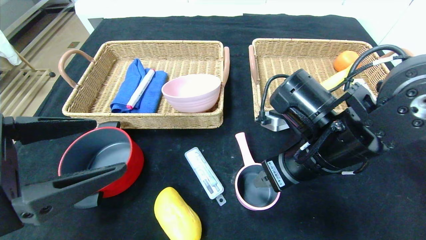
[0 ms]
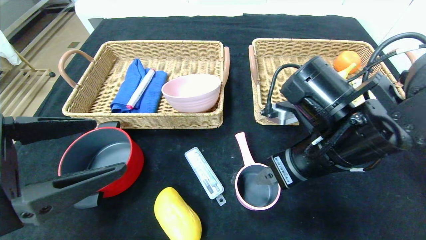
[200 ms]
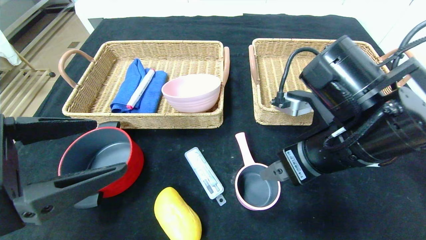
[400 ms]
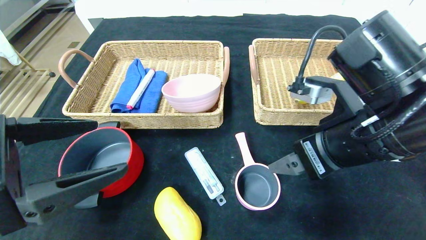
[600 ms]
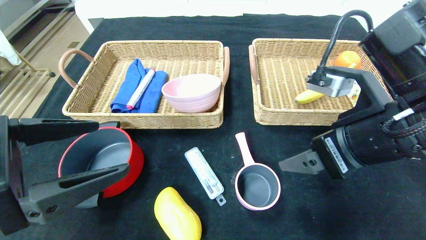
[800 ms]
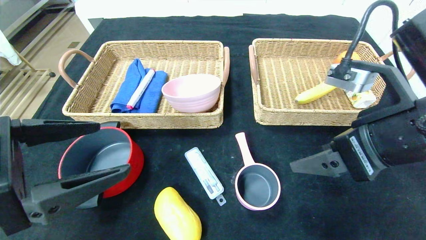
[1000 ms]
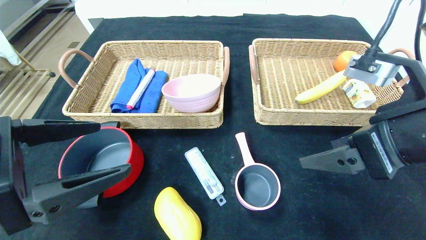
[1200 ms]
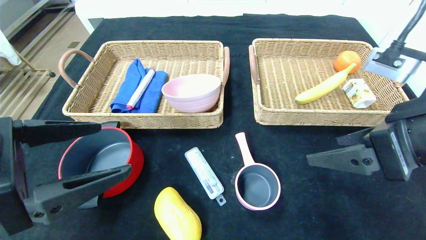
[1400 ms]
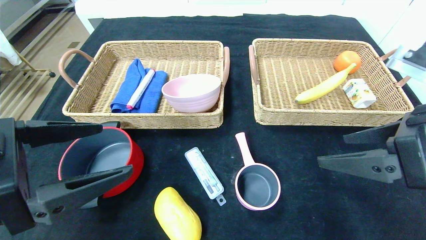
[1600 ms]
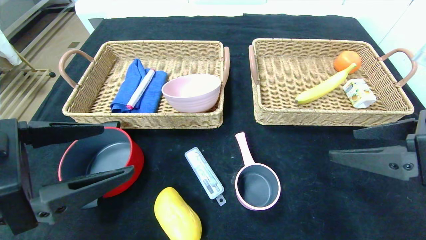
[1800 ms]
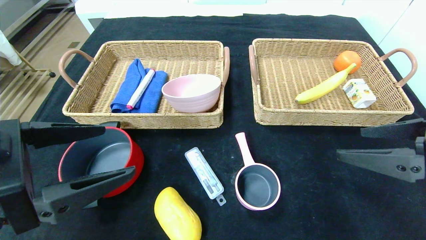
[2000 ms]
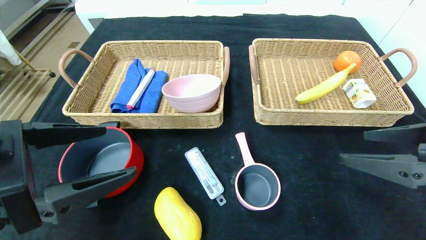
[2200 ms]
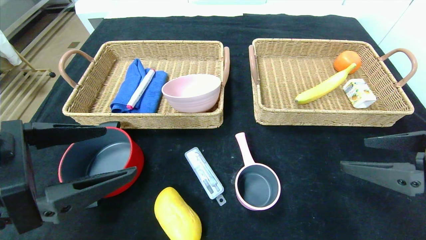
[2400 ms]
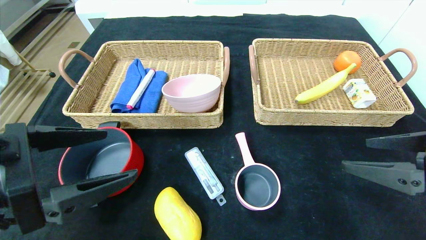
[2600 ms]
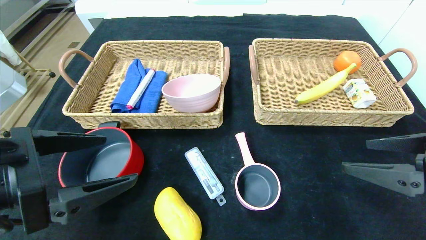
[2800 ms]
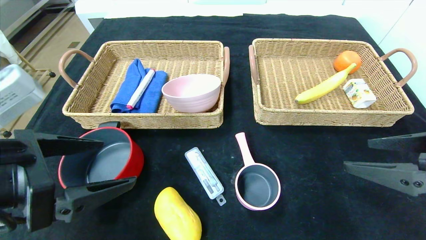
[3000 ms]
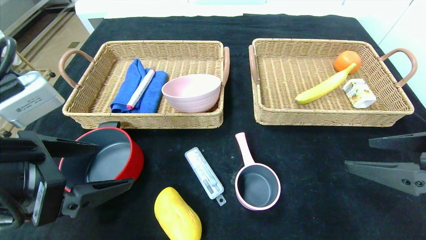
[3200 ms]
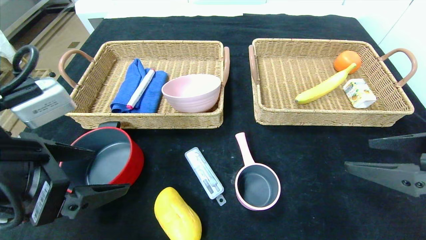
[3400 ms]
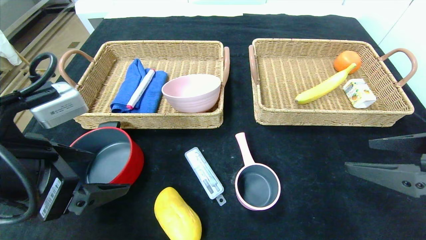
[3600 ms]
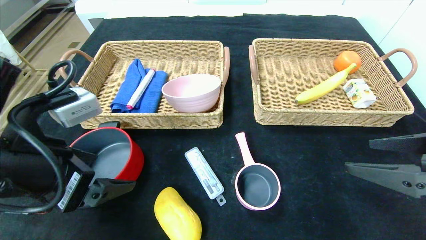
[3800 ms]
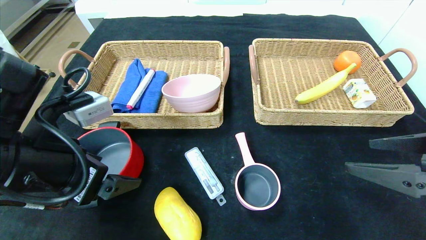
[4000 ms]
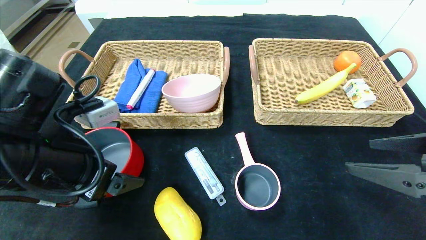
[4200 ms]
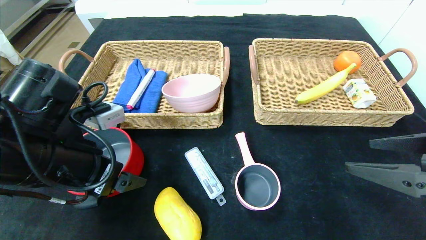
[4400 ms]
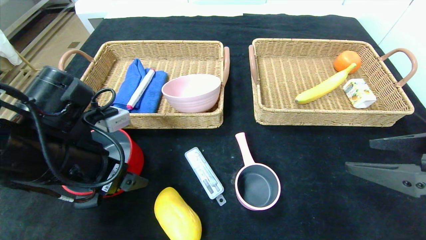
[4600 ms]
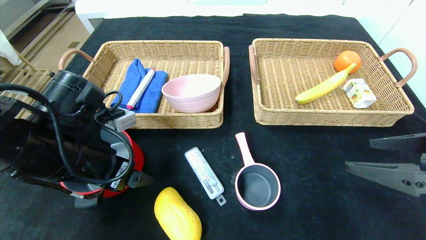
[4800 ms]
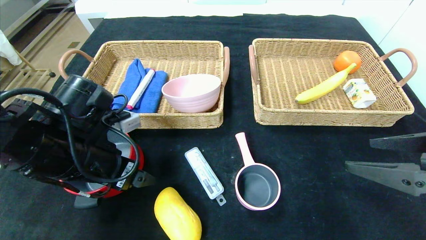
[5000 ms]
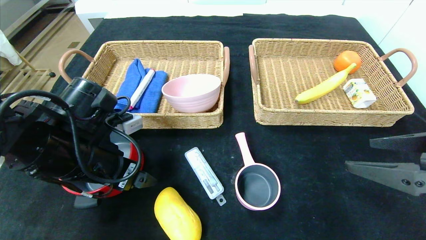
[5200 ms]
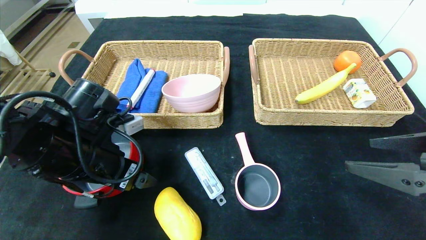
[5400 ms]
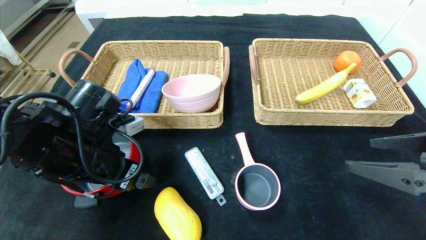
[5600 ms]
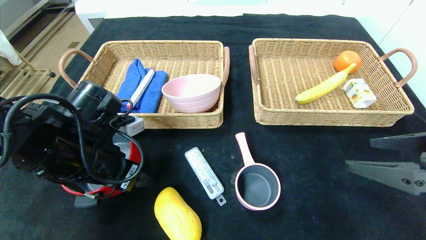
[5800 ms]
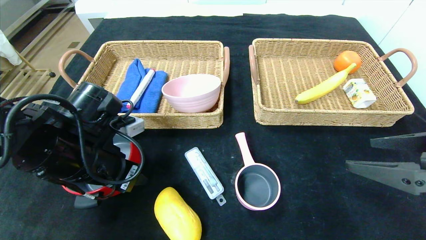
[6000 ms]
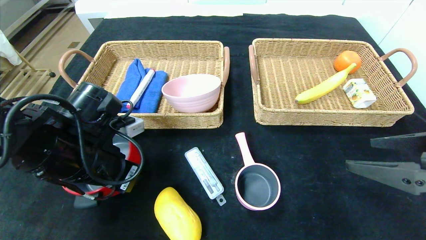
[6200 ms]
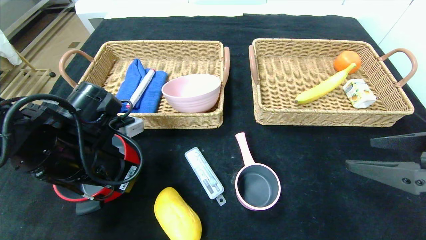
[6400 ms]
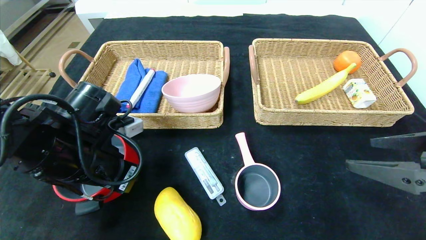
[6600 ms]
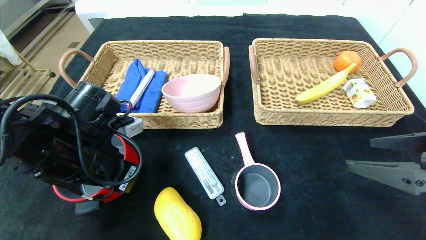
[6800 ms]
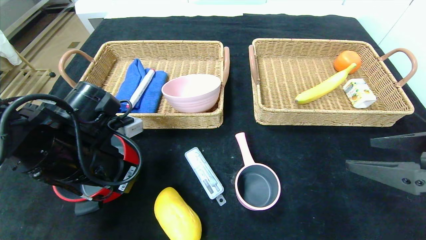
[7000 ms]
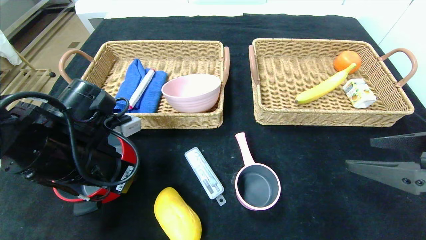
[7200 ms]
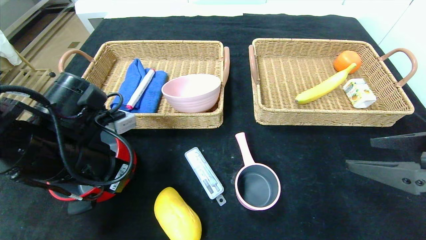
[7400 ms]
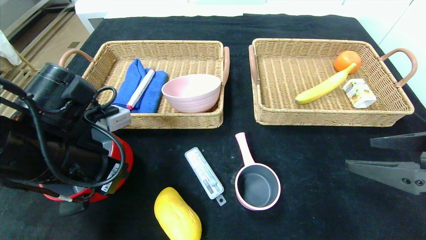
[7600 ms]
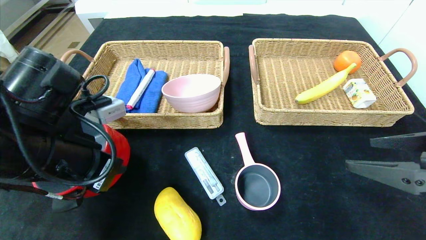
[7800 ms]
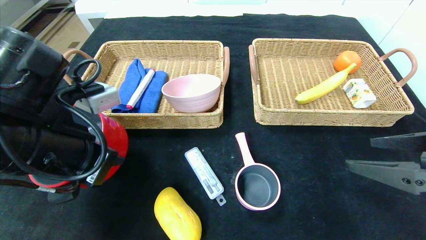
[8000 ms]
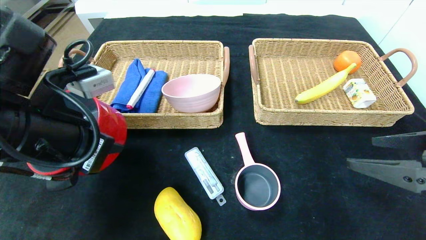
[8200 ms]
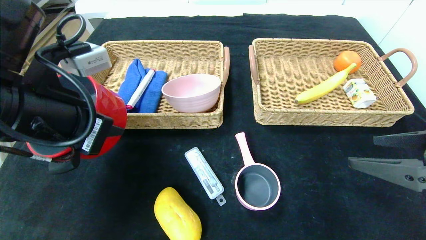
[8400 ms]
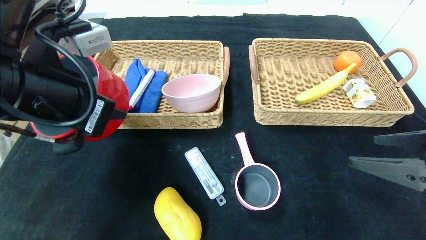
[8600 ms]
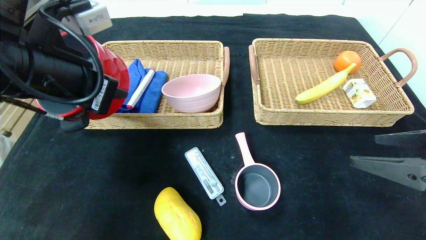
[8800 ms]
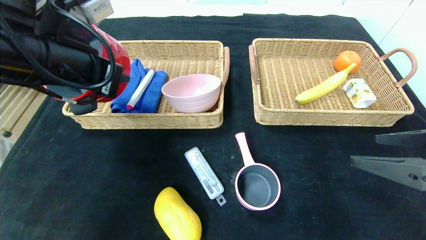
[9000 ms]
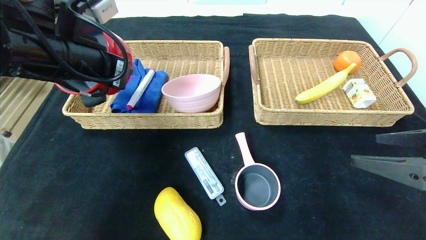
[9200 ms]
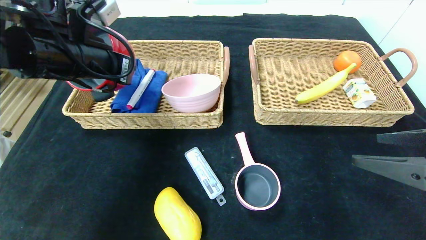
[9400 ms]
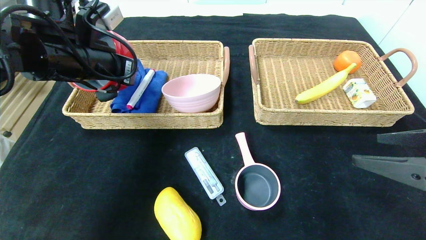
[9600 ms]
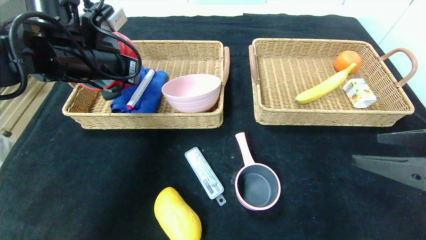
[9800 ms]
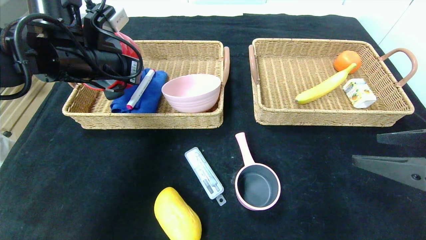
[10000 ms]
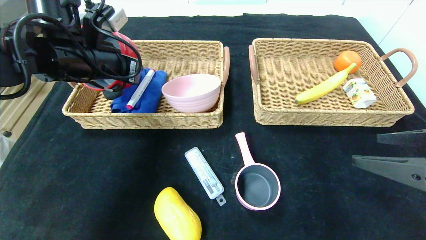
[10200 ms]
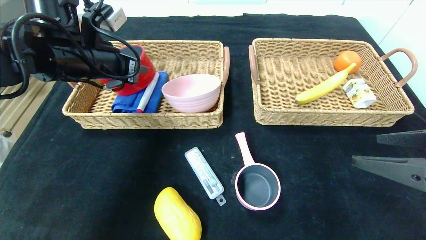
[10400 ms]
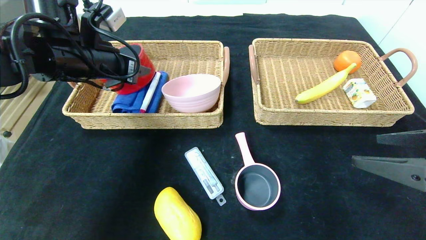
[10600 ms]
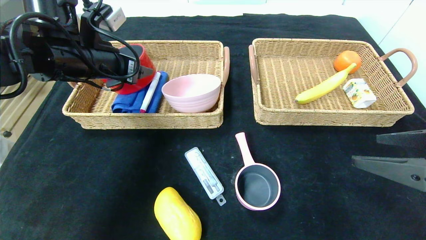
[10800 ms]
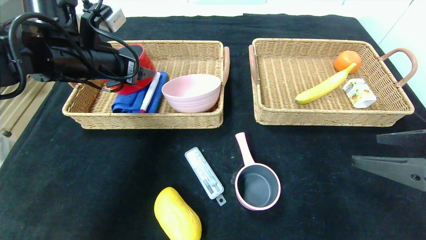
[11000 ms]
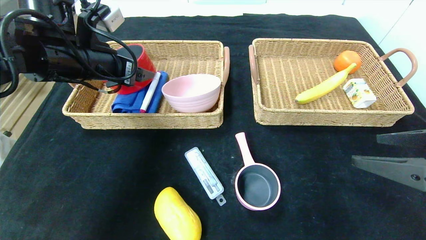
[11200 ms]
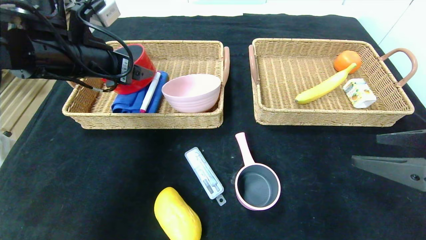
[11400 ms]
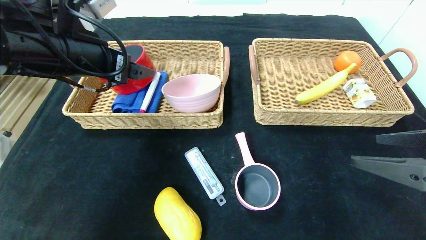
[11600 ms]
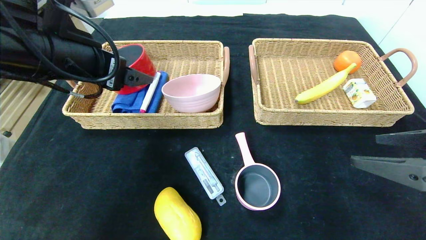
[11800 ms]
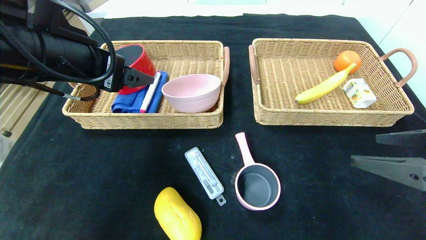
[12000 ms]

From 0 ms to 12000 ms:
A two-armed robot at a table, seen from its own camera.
Step, from 0 ms to 10400 ms: Grasp the red pot and put it in the left basket.
From 0 ms to 1600 ms: The right gripper moves to the right, backward and upward, some 15 cm.
From 1600 ms to 3000 ms: The grippers move only a little.
From 3000 ms to 4400 ms: The left gripper shifts about 5 cm forward.
From 4400 ms to 6000 ms: The left gripper moves roughly 5 cm, and closes its fingers.
From 6000 ms to 7600 ms: The left gripper closes.
From 7600 ms to 9000 ms: The left gripper is displaced upward by about 10 cm.
From 9000 ms to 10400 ms: The left gripper heads forward, covering approximately 10 cm, and opens up.
From 10400 ms to 12000 ms: The left gripper travels backward by about 10 cm, and opens.

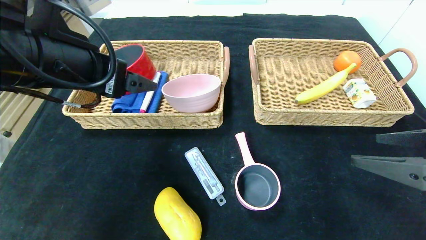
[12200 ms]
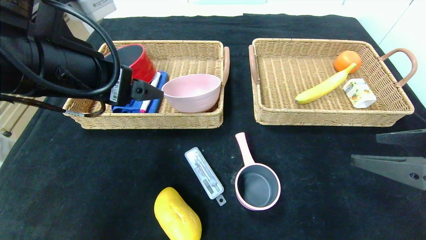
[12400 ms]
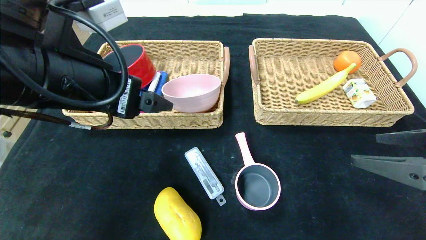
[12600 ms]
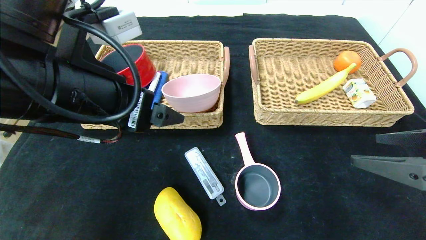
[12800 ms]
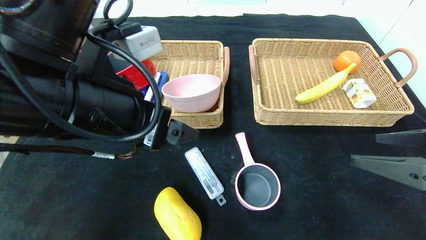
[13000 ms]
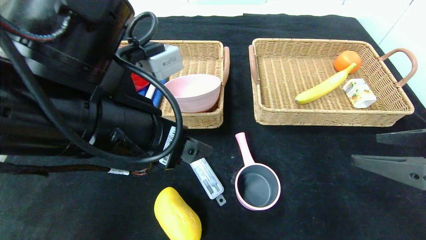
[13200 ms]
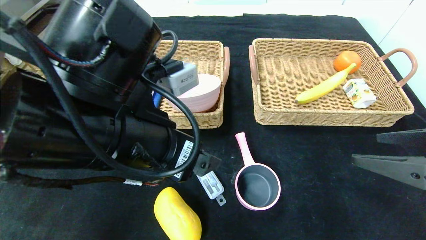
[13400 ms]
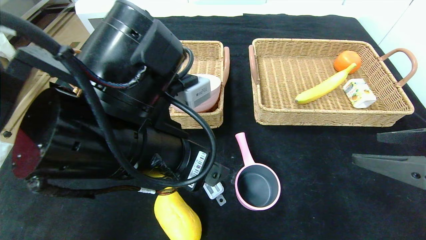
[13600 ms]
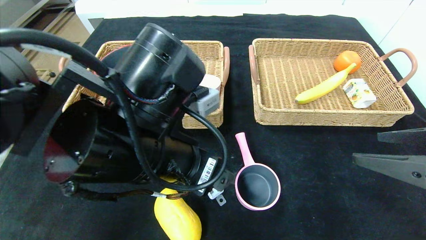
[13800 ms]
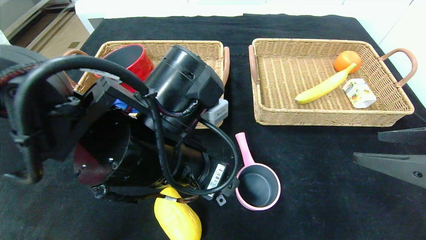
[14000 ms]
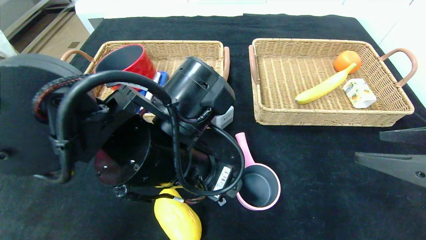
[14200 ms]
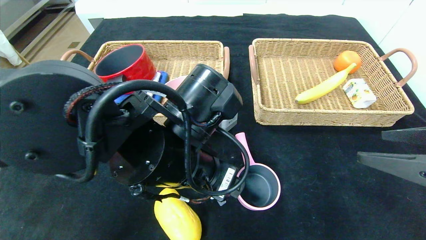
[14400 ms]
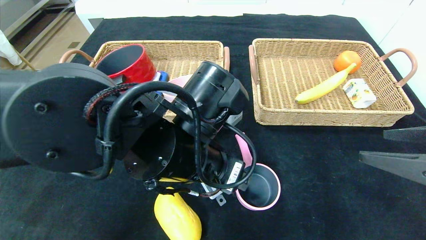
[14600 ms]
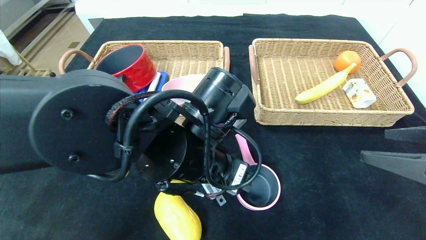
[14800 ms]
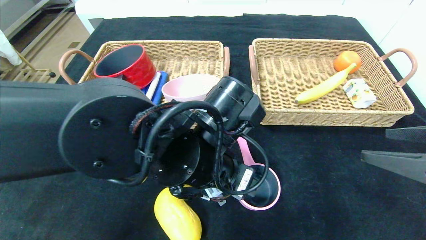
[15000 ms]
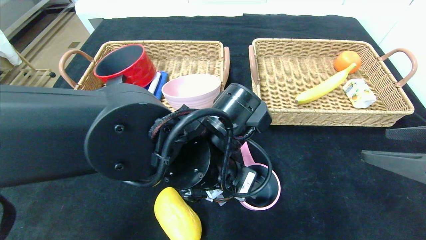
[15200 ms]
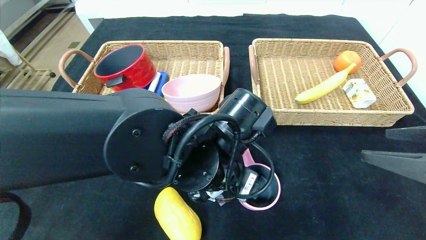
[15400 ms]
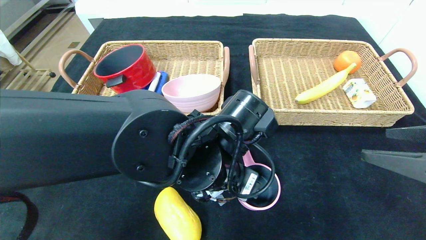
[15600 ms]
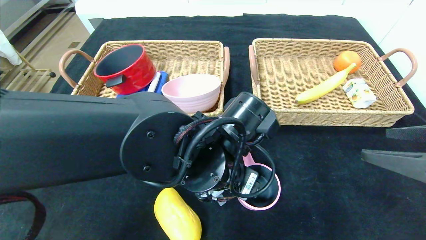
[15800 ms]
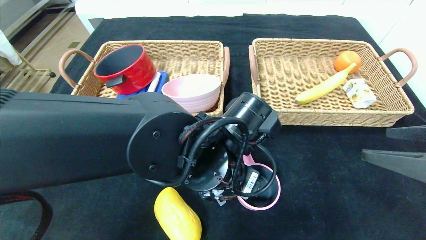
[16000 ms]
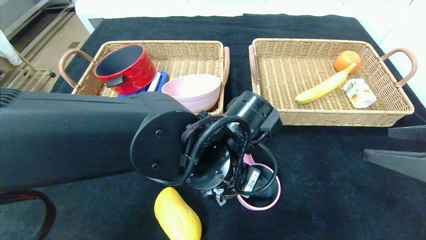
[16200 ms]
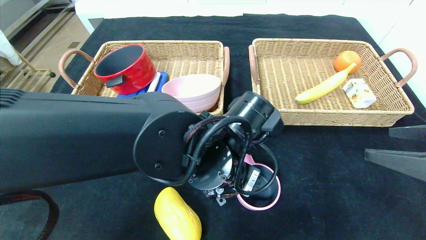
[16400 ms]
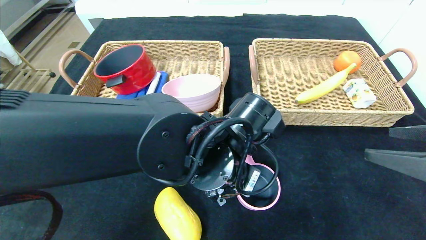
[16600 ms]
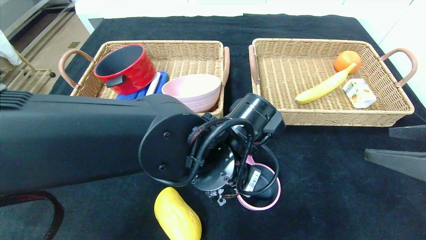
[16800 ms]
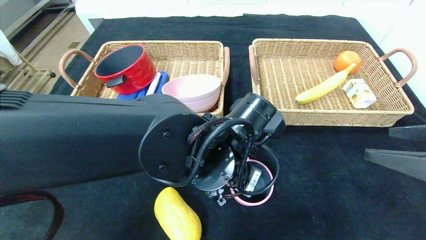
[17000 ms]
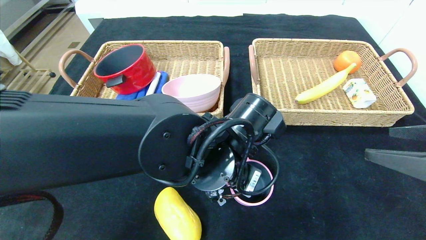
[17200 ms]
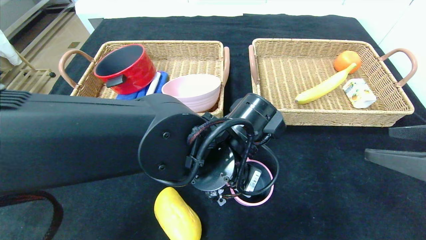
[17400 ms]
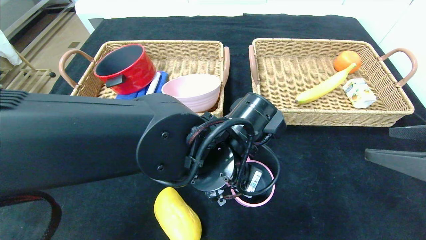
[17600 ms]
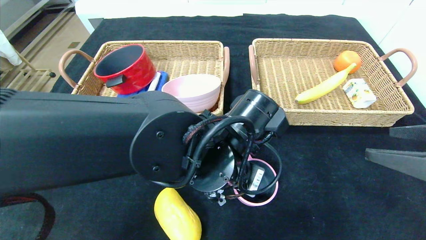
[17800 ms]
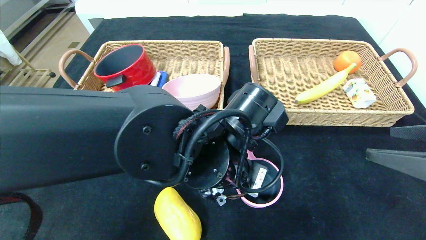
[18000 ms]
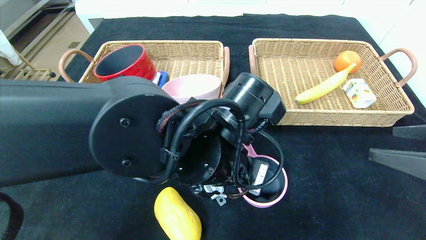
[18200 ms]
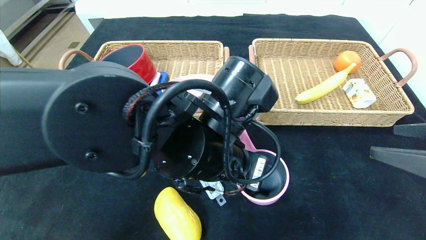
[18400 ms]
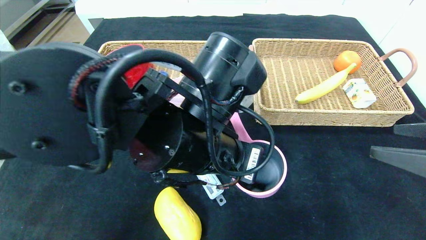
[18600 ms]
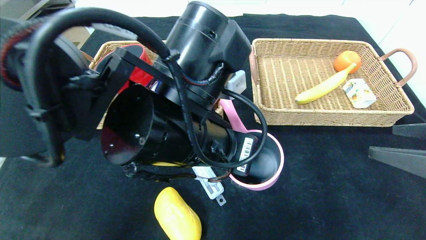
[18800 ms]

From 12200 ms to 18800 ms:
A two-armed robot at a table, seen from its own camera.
From 12200 ms to 13800 ms: The left gripper heads to the right and downward, covering about 15 cm.
From 13800 ms to 15400 ms: The left gripper shifts approximately 10 cm to the right and downward.
From 15400 ms to 17200 ms: The left gripper closes.
From 17200 ms to 18800 ms: The left gripper goes approximately 5 cm upward.
